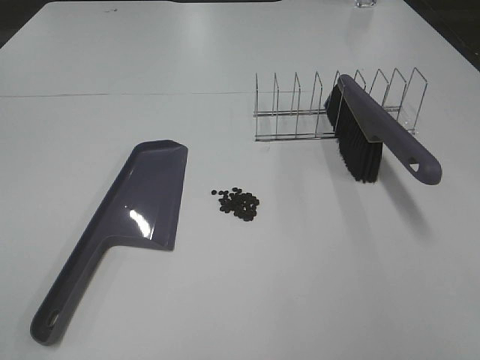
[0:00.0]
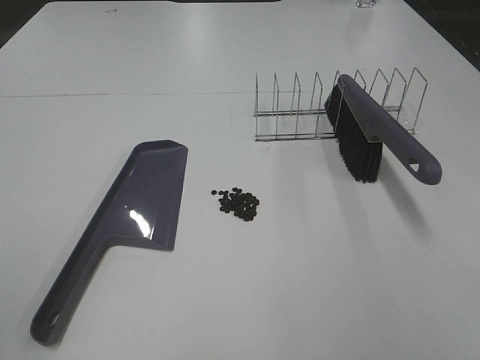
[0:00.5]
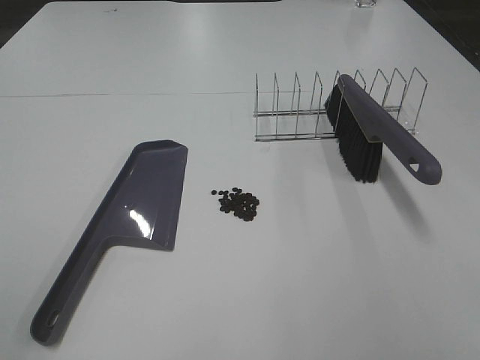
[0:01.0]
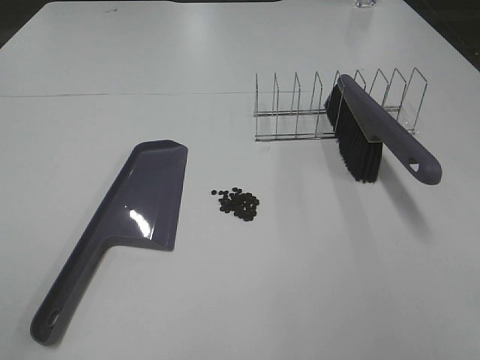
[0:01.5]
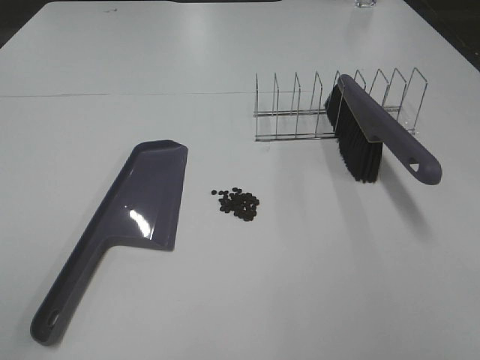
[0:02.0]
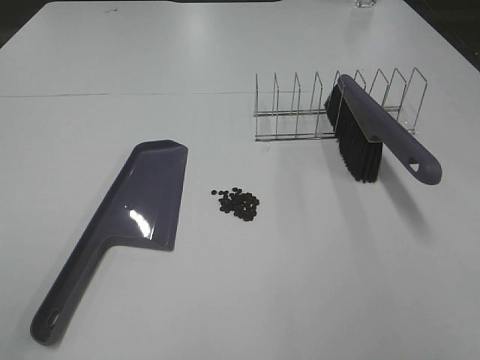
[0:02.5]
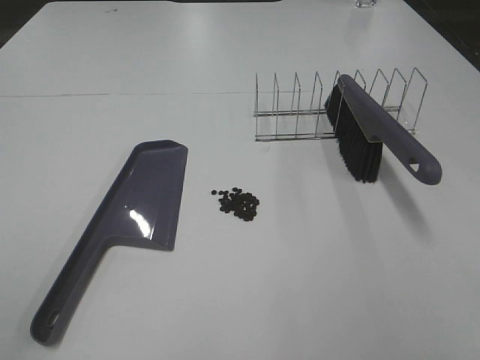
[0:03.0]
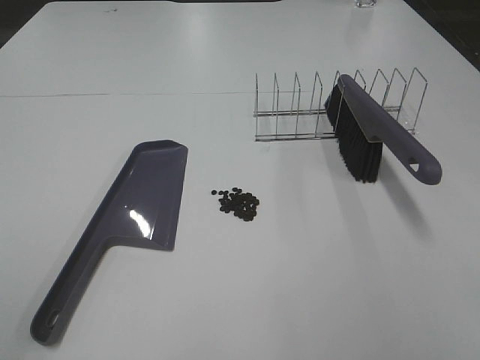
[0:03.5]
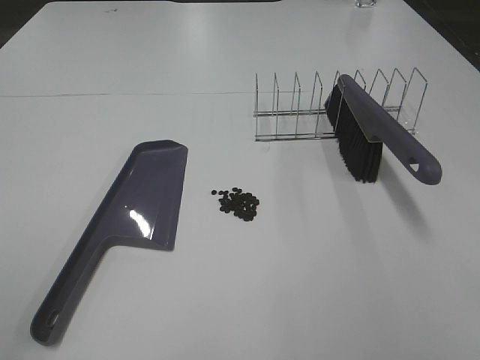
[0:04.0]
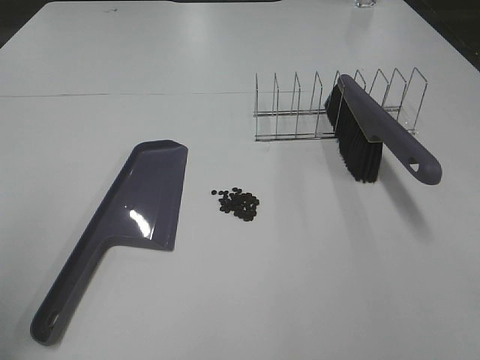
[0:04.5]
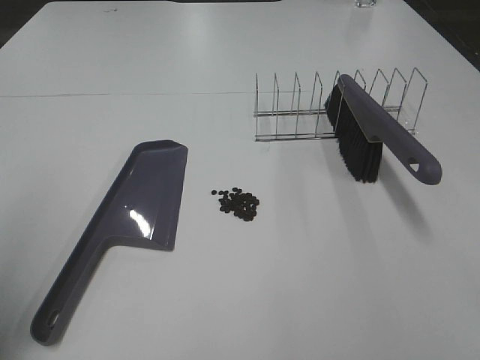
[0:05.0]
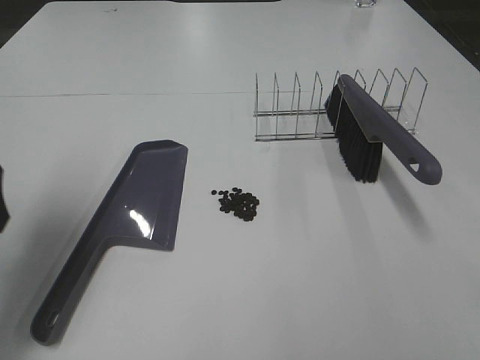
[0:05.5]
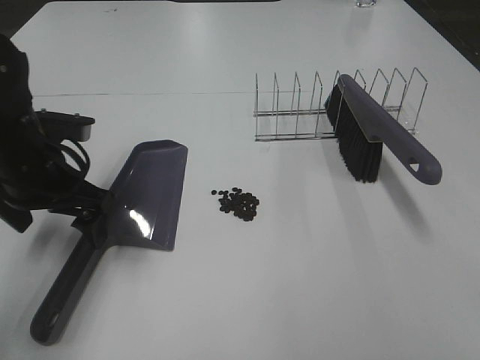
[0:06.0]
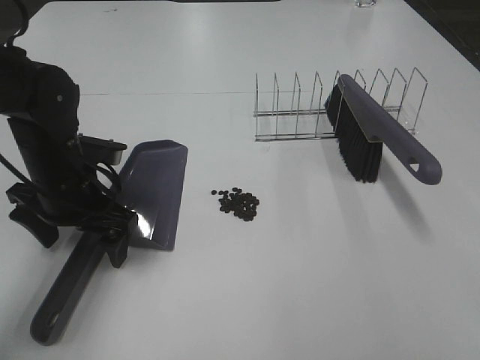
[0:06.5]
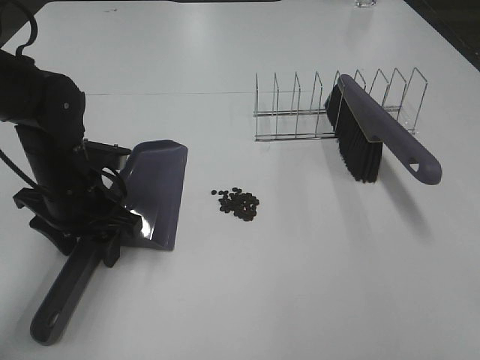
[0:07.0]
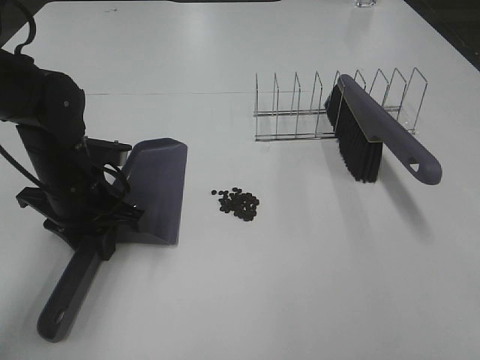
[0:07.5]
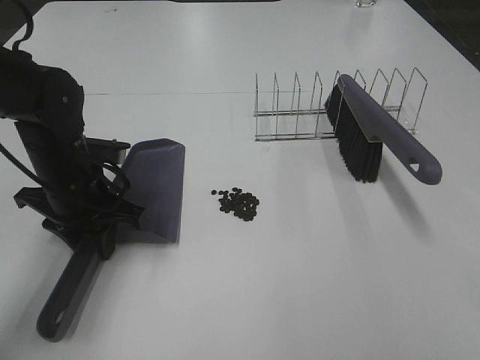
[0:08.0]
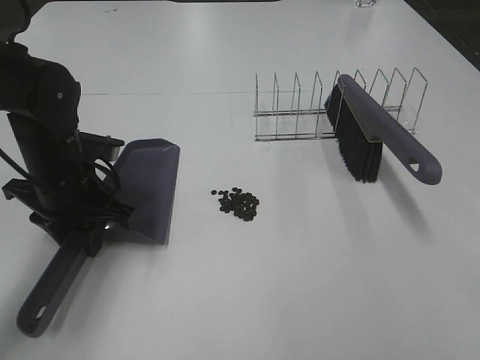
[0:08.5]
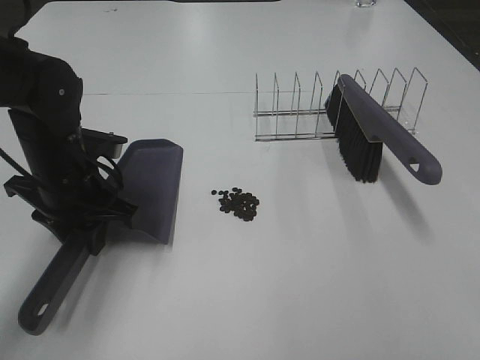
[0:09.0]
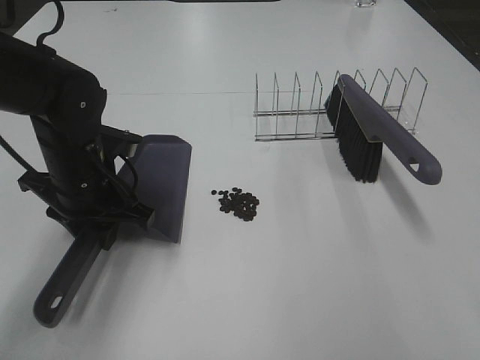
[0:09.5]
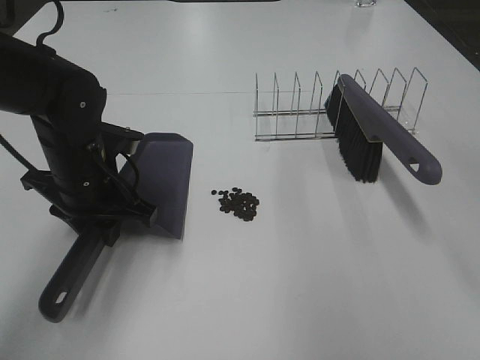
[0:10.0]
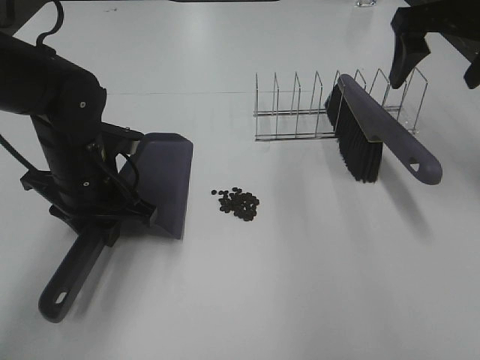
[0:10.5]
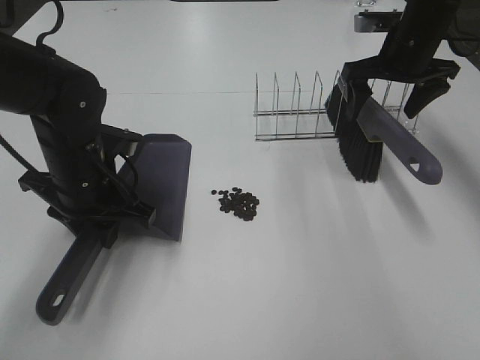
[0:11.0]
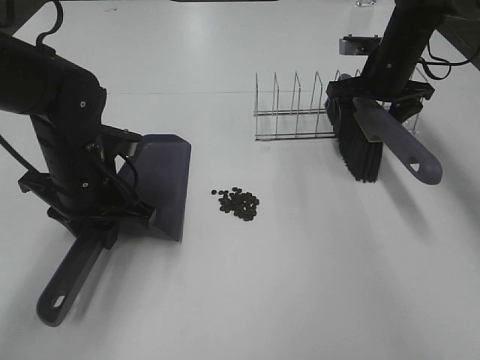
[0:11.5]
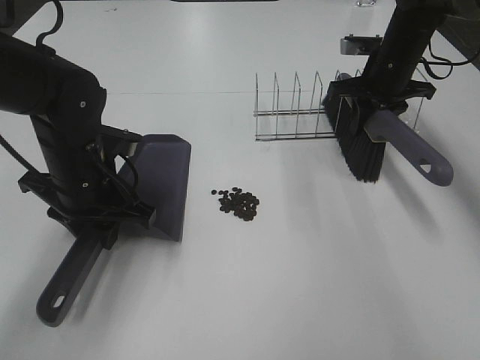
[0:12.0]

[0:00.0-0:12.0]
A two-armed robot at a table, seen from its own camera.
Task of the whole recording: Sweep Coffee Bean.
Step, 0:00.0 to 0:07.0: Left hand: grab the dustpan.
Step, 0:09.5 to 0:11.5: Right hand:grab the broom.
0:00.0 to 0:04.0: Both grippers stay about where they are.
0:04.0 to 0:06.0: The left gripper travels forward and downward by approximately 35 cm.
0:06.0 to 0:08.0: The left gripper closes.
0:08.0 to 0:10.0: The right gripper is displaced forward by about 20 cm.
0:10.0 to 0:12.0: The right gripper heads forward and downward, covering roughly 35 cm, and closes up.

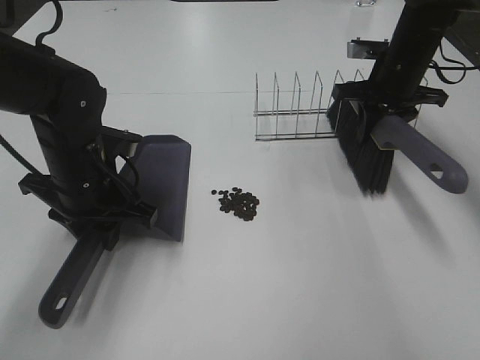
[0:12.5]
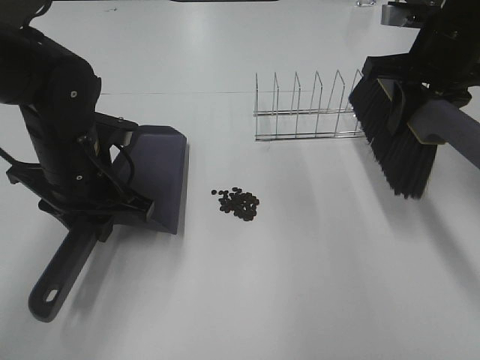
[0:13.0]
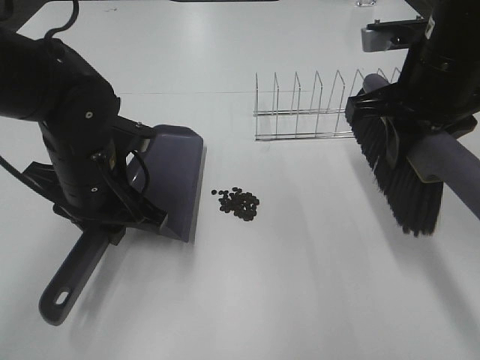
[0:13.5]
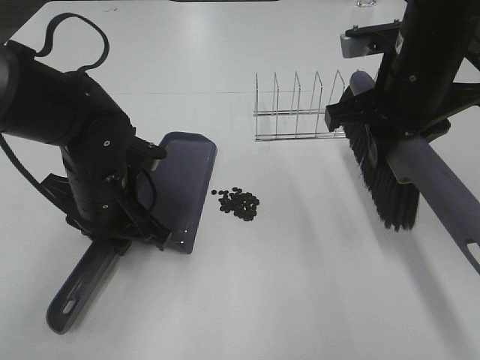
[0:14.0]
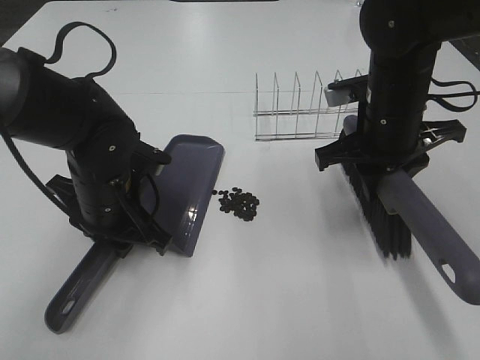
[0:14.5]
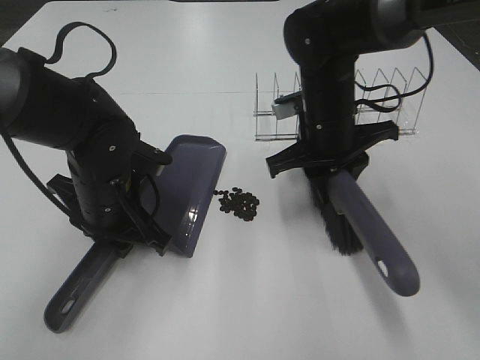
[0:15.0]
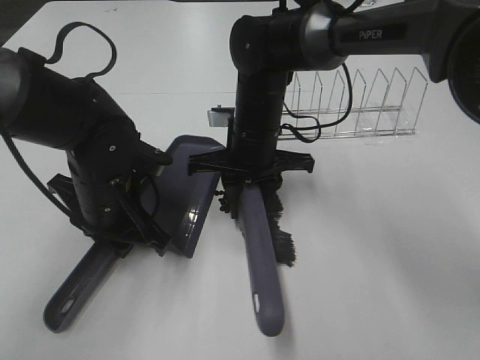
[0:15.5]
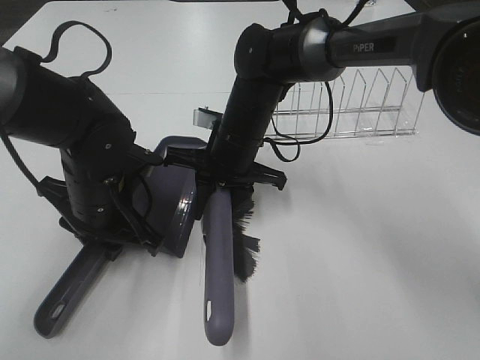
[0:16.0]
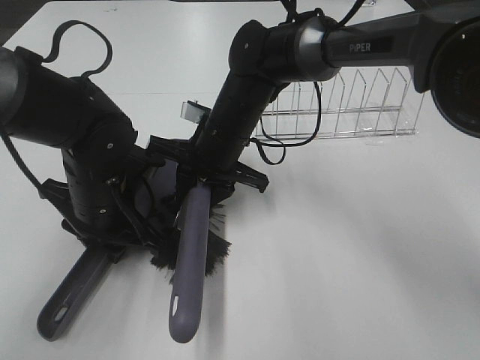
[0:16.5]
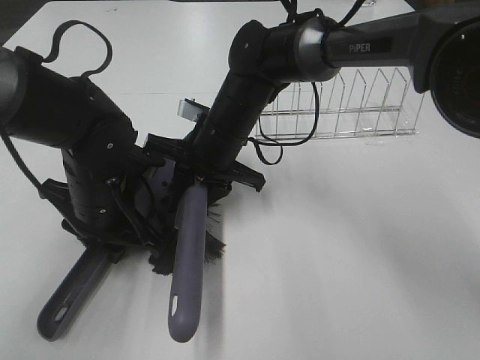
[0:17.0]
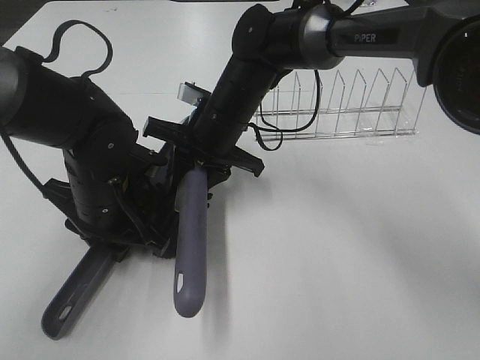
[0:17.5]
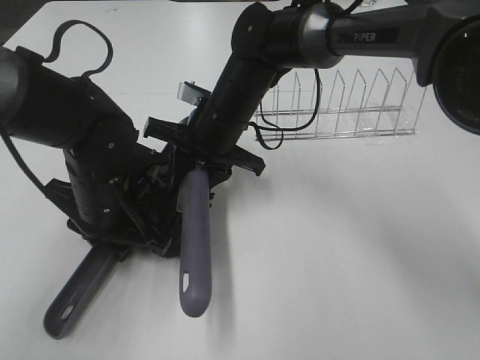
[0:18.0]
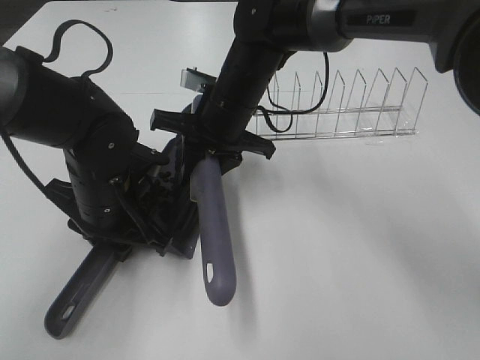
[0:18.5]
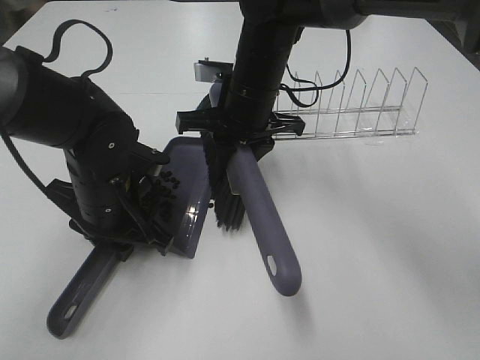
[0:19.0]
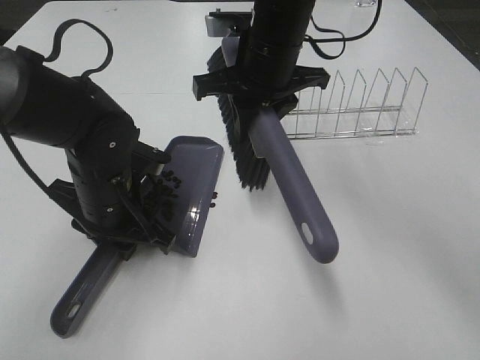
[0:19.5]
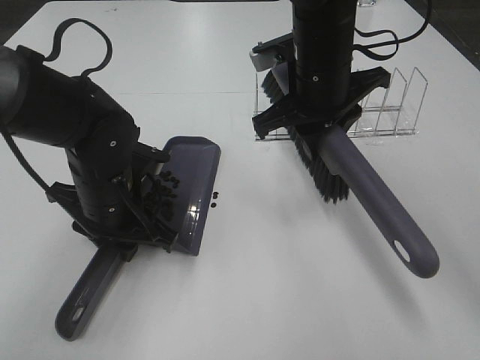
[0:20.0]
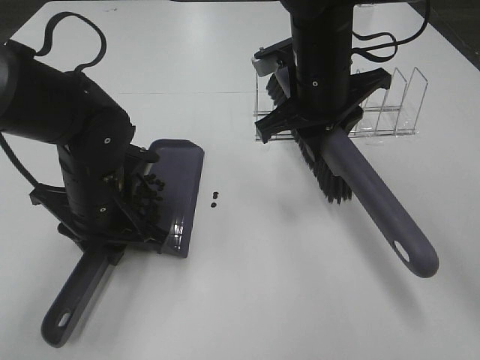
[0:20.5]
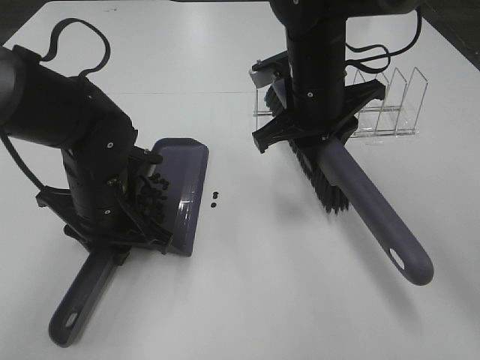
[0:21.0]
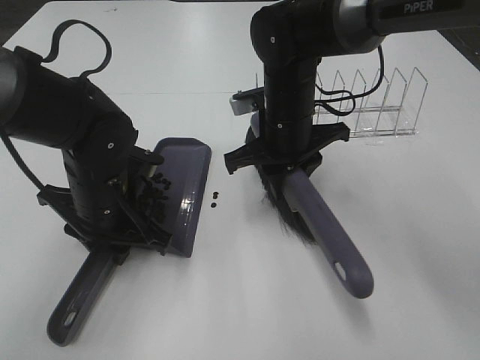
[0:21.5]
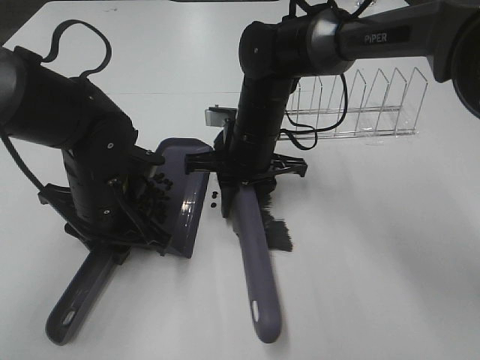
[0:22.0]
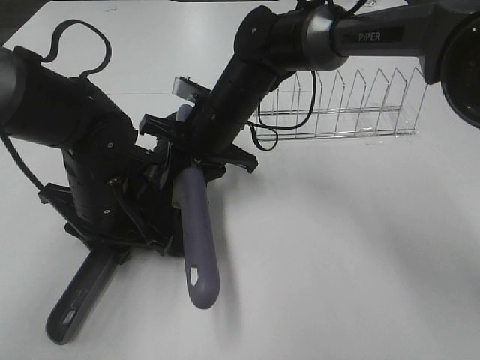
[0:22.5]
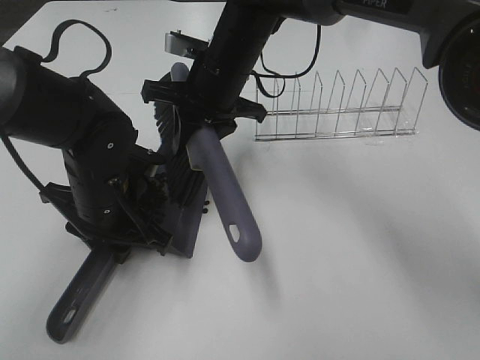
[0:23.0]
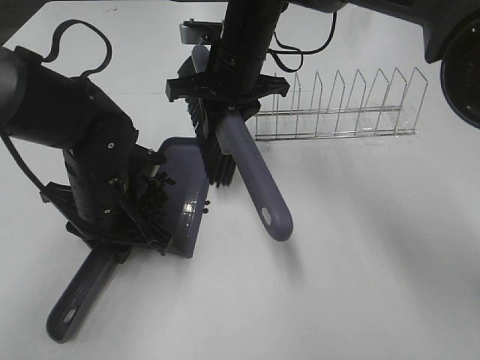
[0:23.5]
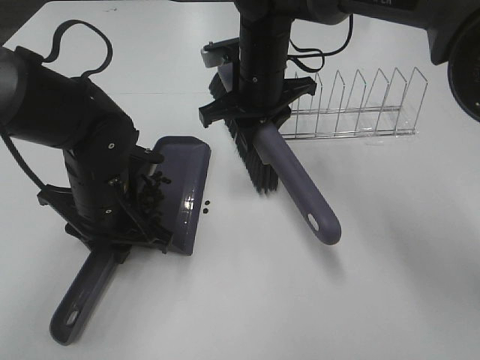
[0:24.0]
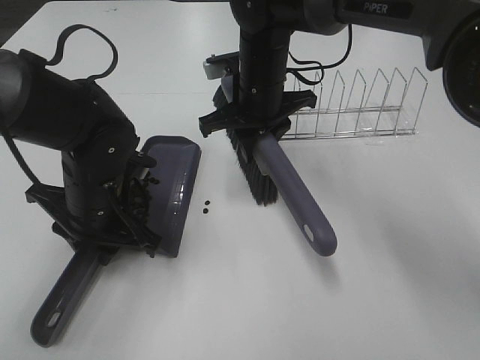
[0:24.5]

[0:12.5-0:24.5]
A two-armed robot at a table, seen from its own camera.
Task of the whole recording: Sweep Coffee Bean.
0:12.5 to 0:14.5: The right gripper goes approximately 15 cm backward and to the left.
0:14.5 to 0:16.5: The right gripper travels to the left by approximately 15 cm.
0:18.5 to 0:20.5: The right gripper moves to the right and upward, roughly 10 cm.
0:20.5 to 0:22.5: The right gripper is displaced to the left and downward by approximately 10 cm.
0:22.5 to 0:24.5: The right gripper moves about 5 cm.

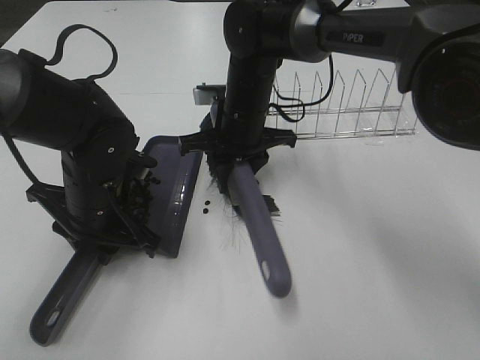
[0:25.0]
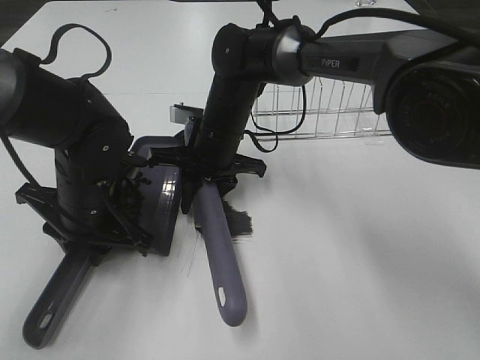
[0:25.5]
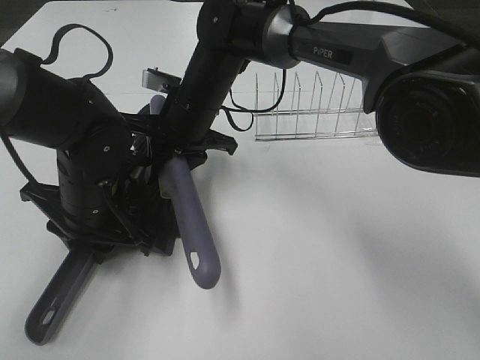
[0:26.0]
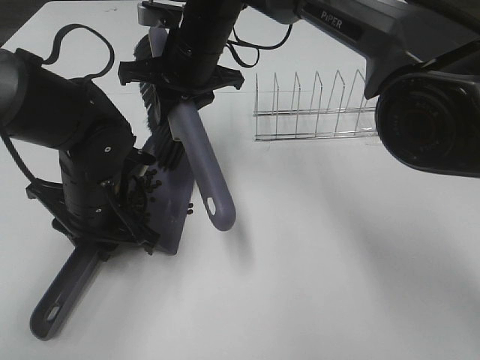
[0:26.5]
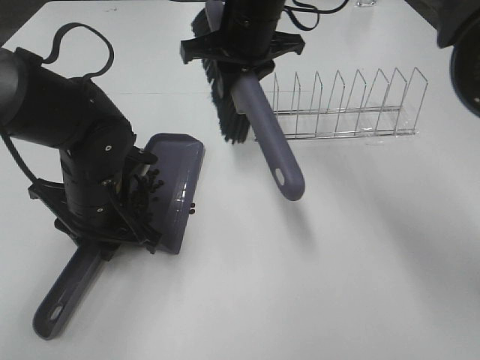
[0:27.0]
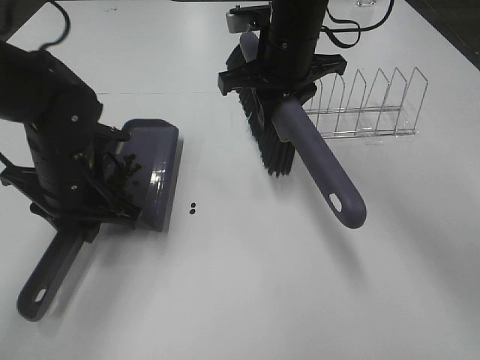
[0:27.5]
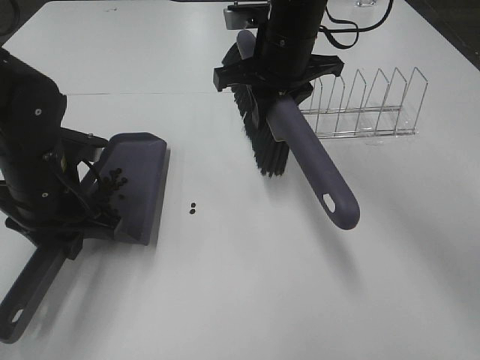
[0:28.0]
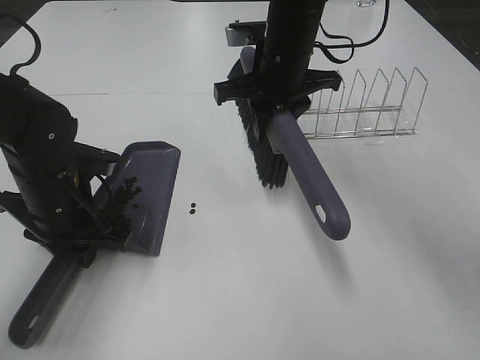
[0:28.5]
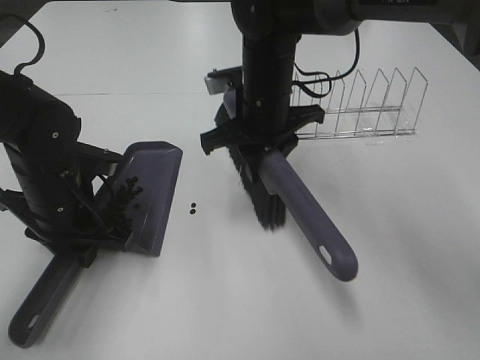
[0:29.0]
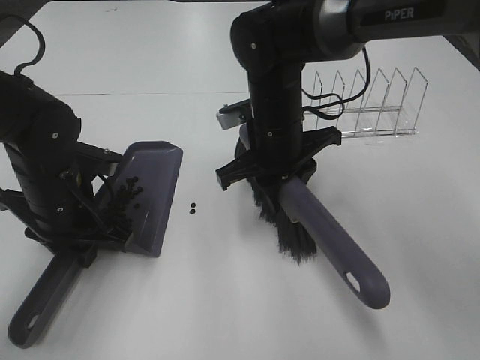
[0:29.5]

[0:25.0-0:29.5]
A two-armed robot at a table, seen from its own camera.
Task of the whole recording: Sweep Coffee Bean.
0:25.0 to 0:27.0: The right gripper heads upward, covering approximately 10 cm.
0:27.0 to 0:29.5: The right gripper travels downward and backward by some 15 cm.
